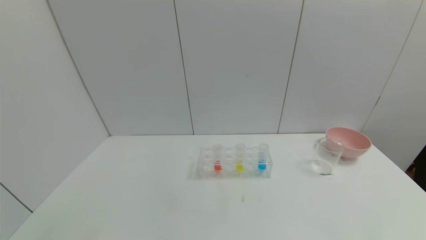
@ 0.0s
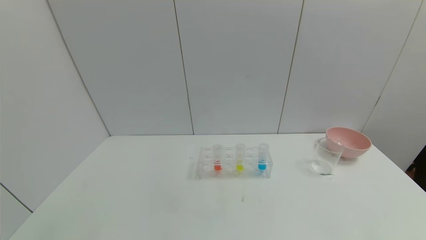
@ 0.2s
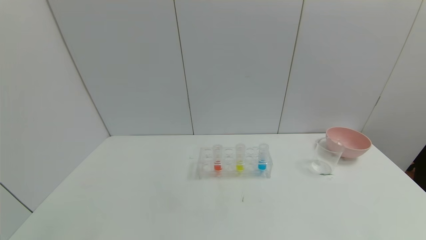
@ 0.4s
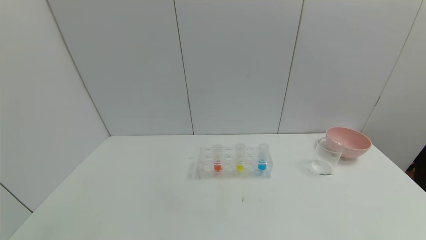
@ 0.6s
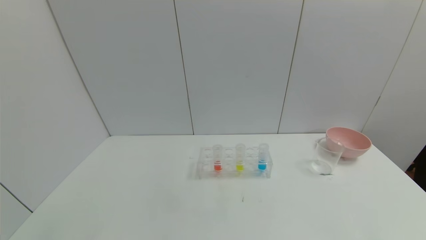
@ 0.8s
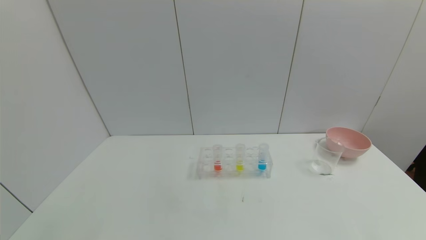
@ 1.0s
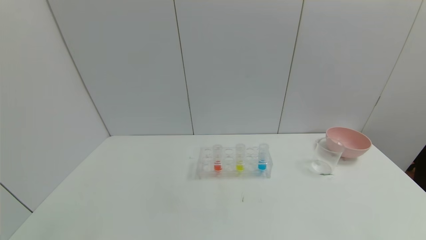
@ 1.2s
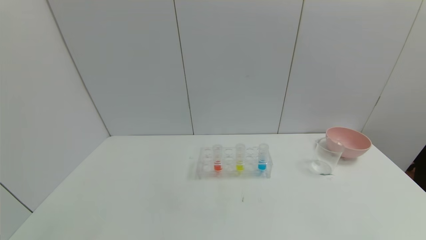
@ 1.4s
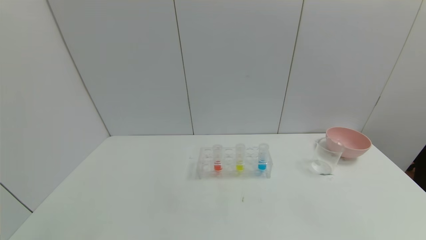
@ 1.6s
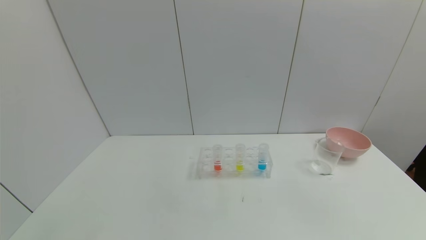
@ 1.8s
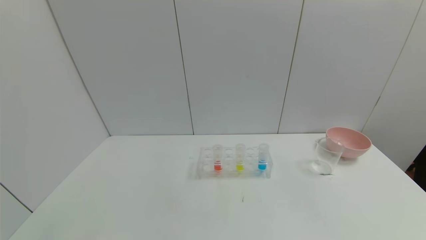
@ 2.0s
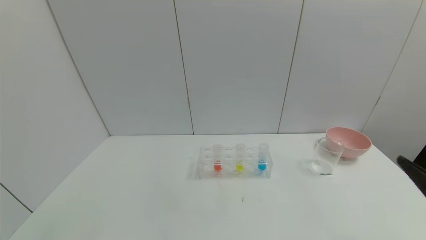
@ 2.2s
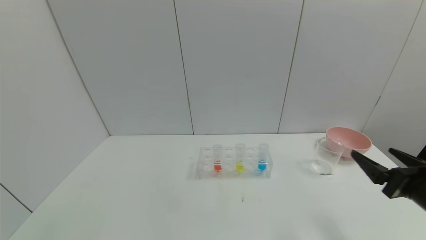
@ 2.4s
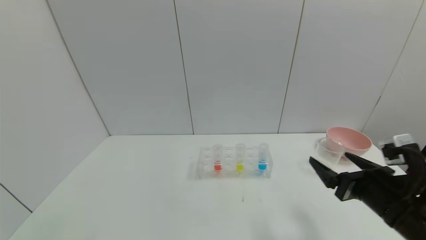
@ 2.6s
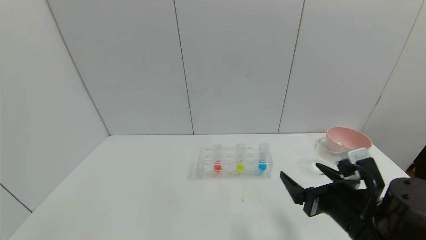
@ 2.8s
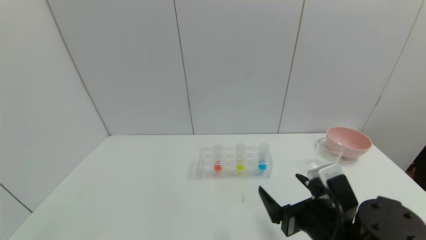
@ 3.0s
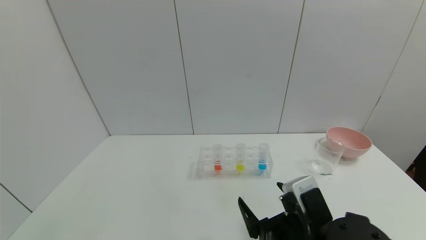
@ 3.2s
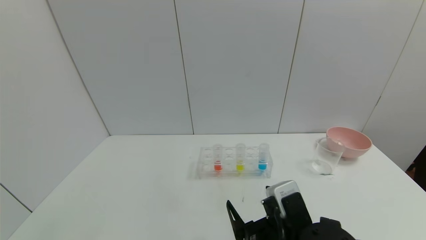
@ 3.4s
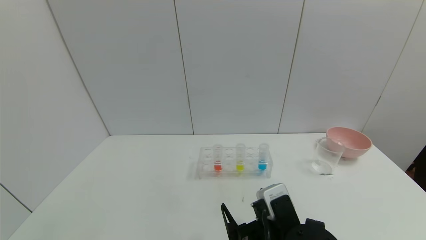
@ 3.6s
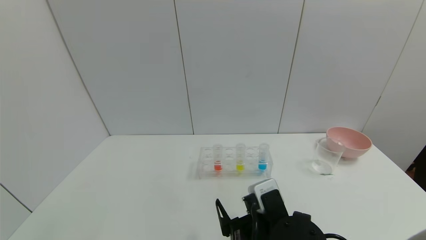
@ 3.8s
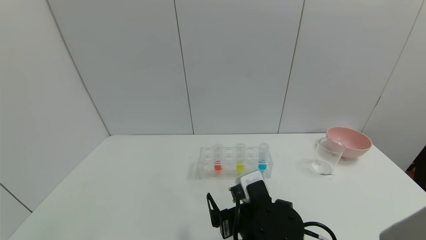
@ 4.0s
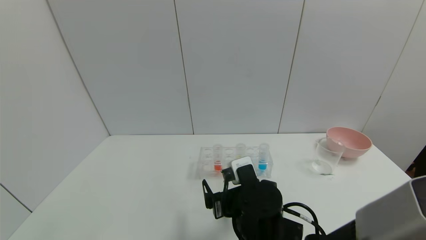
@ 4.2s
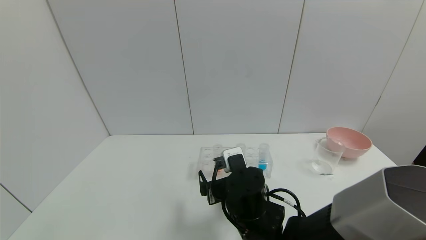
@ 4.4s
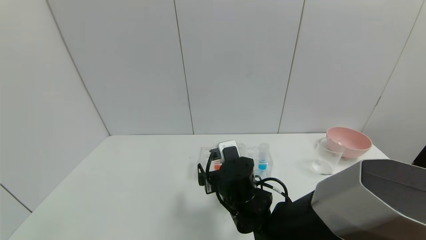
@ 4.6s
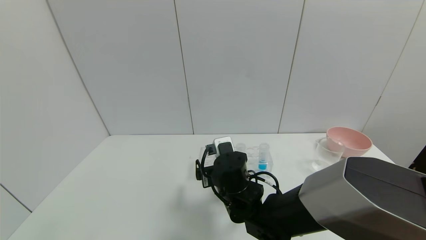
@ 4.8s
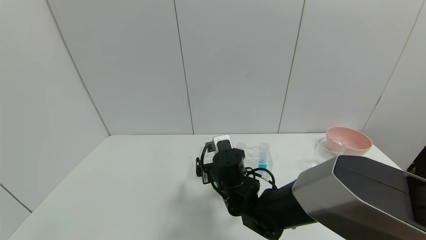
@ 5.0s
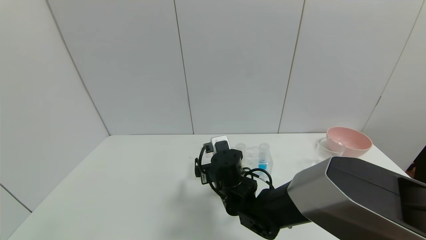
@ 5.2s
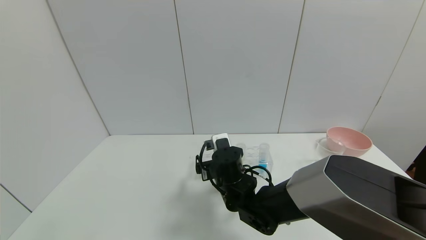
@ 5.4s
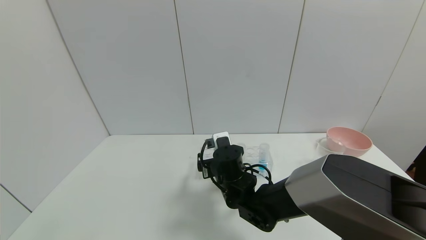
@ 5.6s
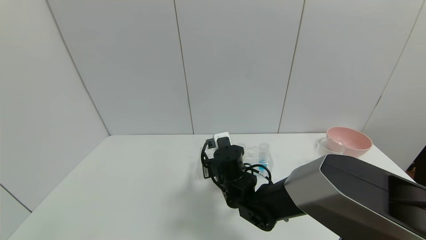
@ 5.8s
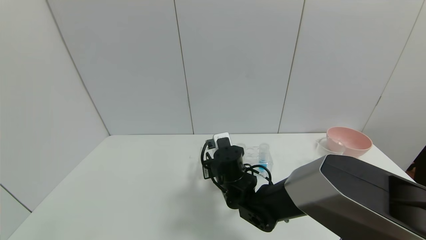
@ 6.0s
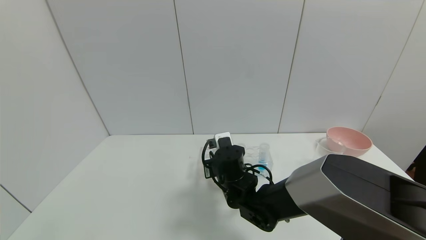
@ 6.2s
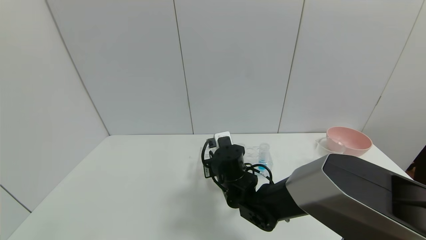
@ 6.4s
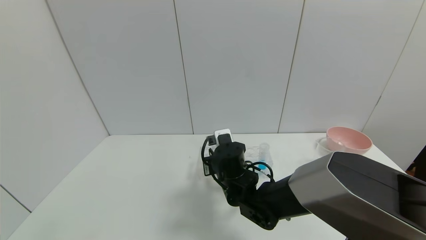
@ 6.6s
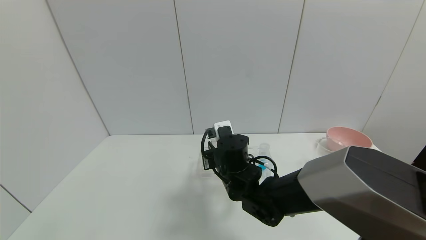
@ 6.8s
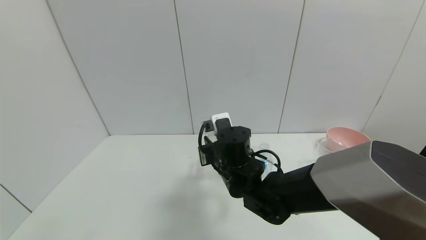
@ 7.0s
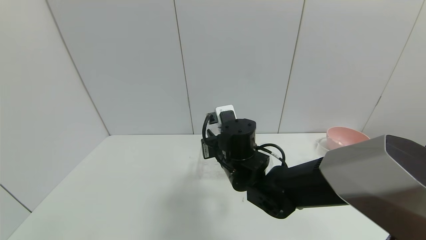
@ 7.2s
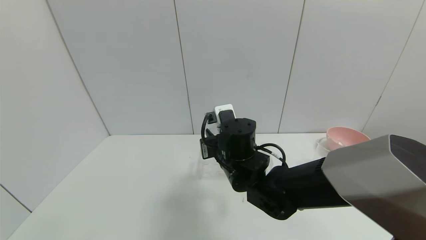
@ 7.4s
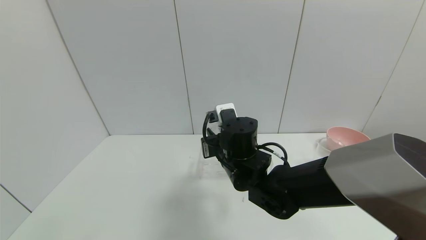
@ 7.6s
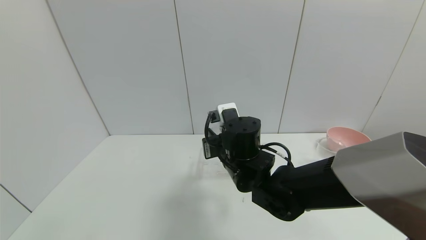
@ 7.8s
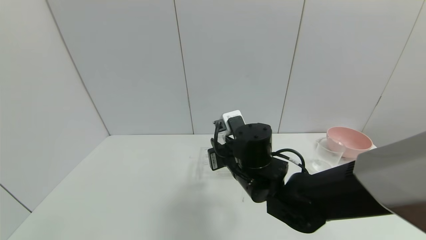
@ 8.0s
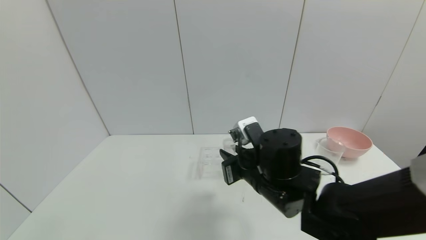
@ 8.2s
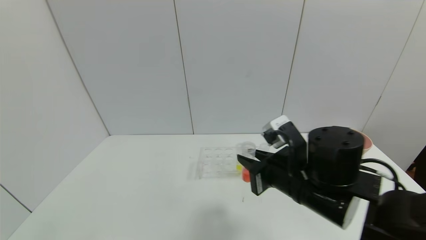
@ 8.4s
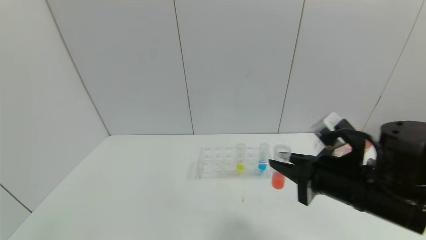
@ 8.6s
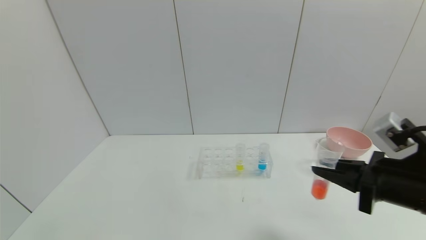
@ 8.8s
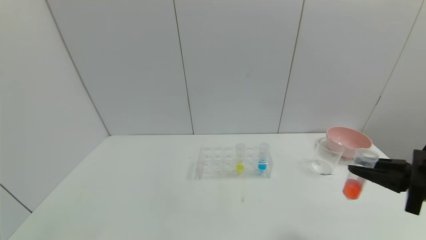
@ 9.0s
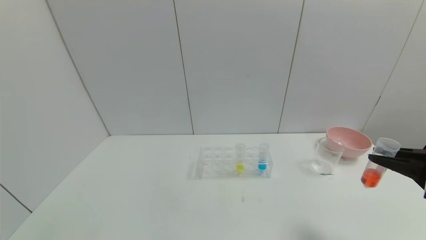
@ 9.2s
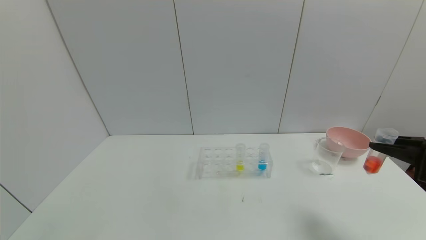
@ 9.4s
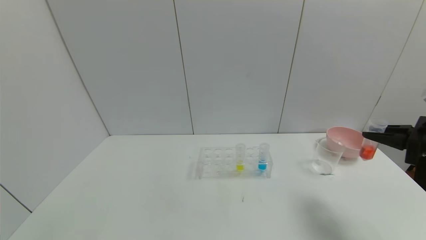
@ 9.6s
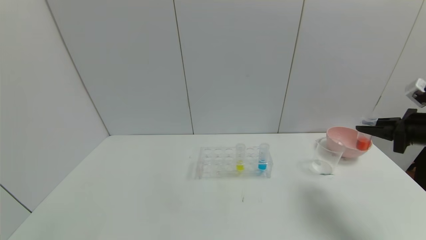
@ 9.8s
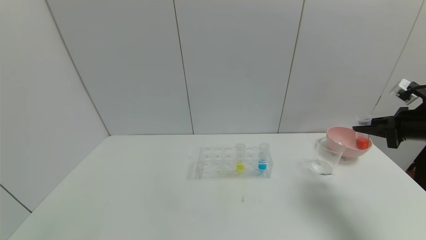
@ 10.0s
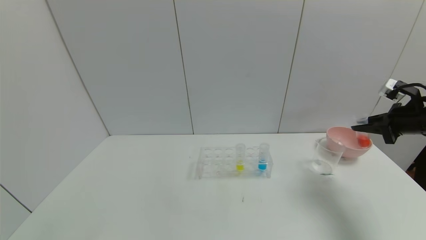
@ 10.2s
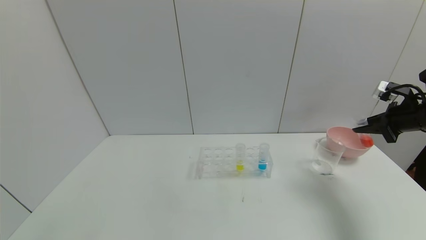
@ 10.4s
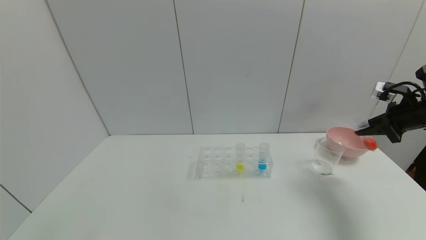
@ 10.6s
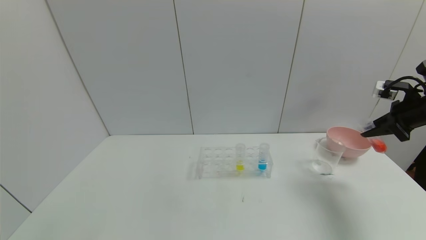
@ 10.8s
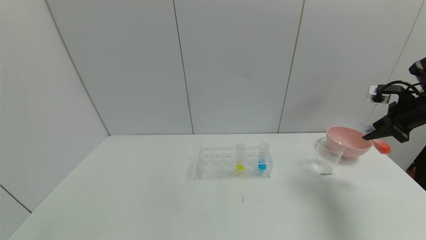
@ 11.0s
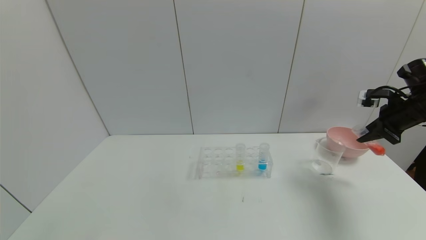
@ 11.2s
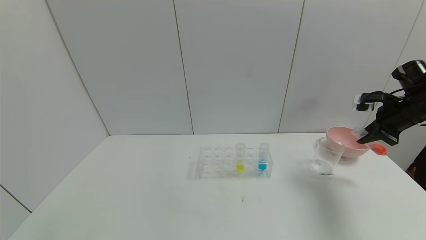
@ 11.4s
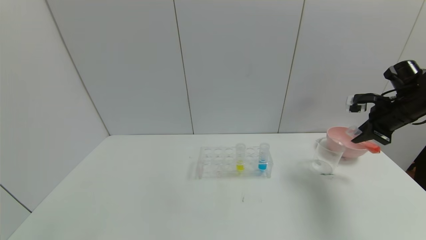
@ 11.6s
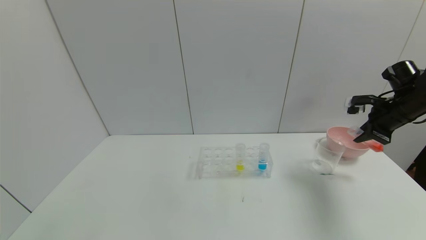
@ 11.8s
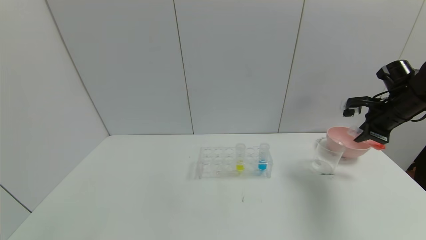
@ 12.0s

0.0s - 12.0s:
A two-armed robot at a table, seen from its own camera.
Task of the whole recording: pick up the test tube with red pigment and the test tube with blue pigment by grippers and pour them into the container.
Step, 0.0s - 6.4s: Grasp the red reagent with the right gripper.
1.6s - 3.0s: The right gripper goes approximately 25 cm to the left and forward.
3.0s - 4.4s: The right gripper is displaced to the left and forward by approximately 15 cm.
4.4s - 6.0s: The right gripper moves forward, roughly 10 cm, and closes its fingers.
6.0s - 7.6s: The right gripper travels upward by approximately 10 cm.
7.6s - 9.0s: The right gripper heads to the right and backward, covering approximately 35 cm.
9.0s - 10.4s: The right gripper moves forward and to the right, approximately 20 cm.
10.4s - 12.0s: The right gripper shifts by some 5 cm.

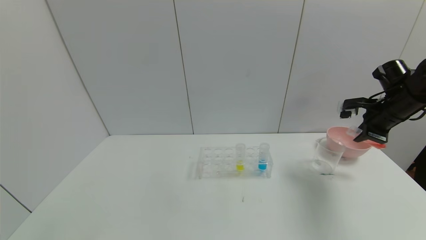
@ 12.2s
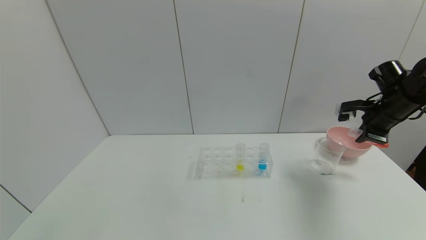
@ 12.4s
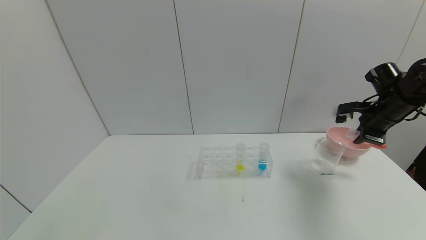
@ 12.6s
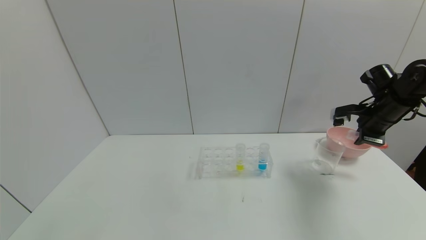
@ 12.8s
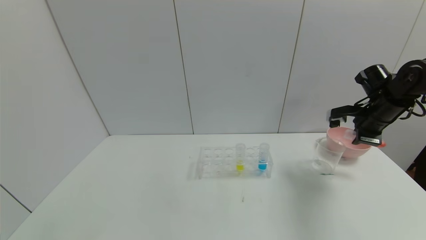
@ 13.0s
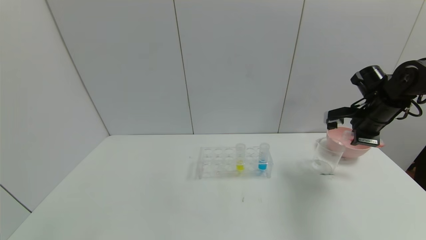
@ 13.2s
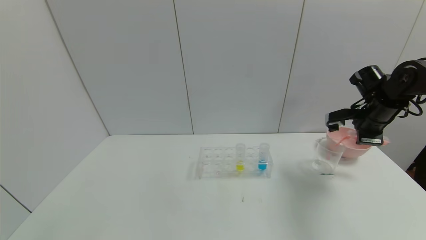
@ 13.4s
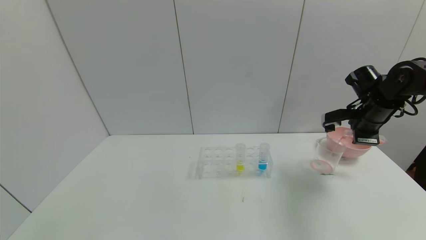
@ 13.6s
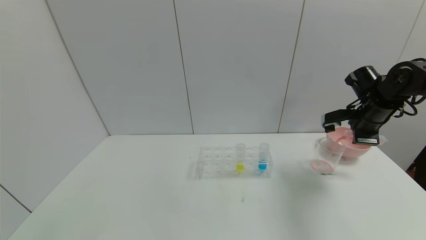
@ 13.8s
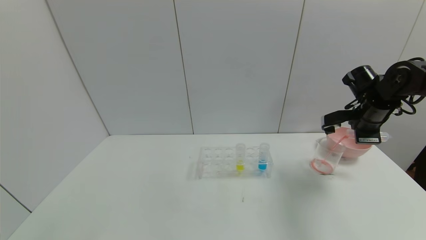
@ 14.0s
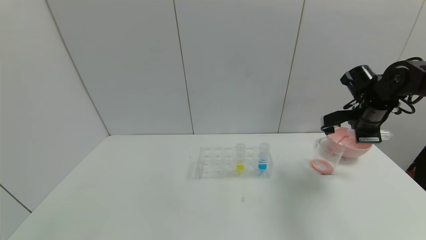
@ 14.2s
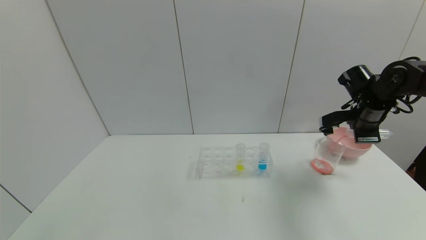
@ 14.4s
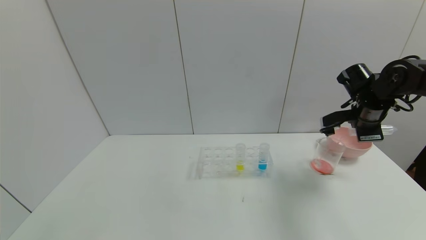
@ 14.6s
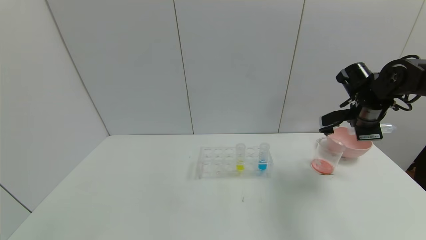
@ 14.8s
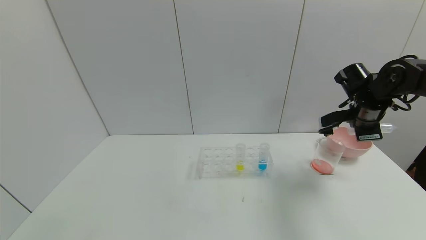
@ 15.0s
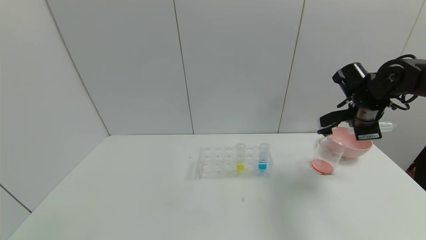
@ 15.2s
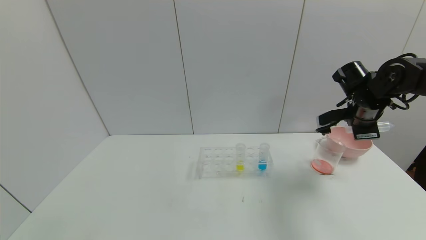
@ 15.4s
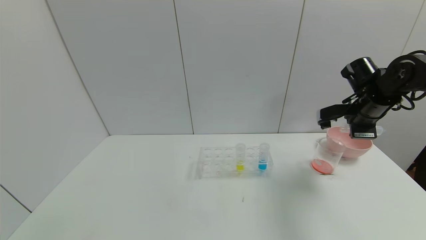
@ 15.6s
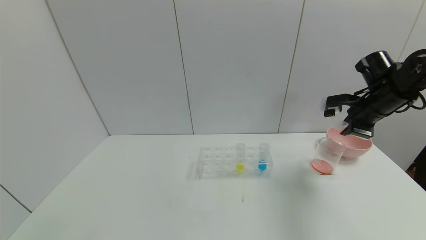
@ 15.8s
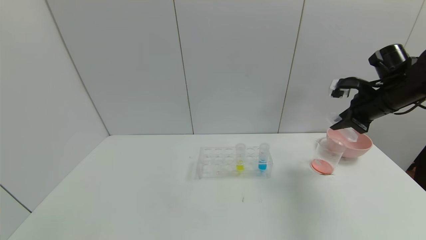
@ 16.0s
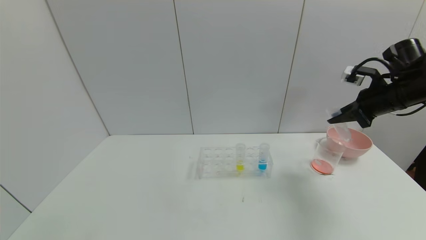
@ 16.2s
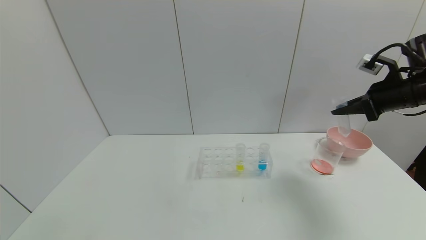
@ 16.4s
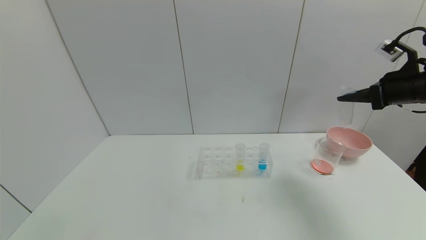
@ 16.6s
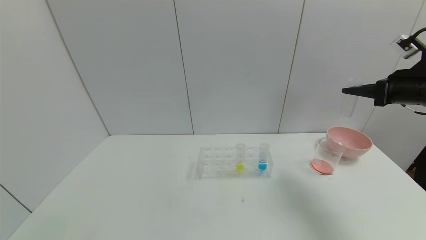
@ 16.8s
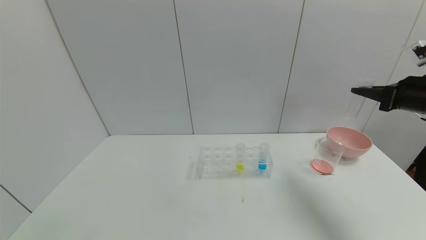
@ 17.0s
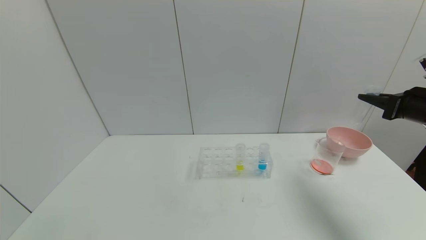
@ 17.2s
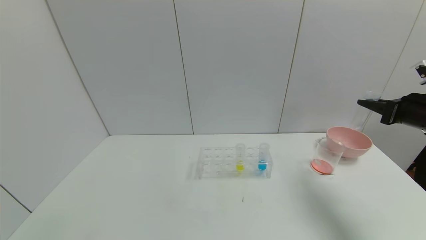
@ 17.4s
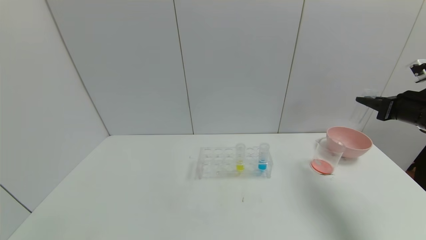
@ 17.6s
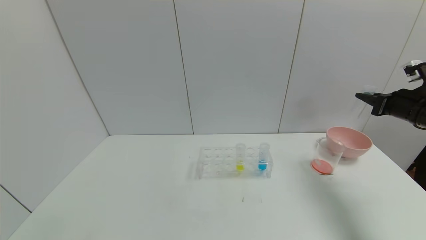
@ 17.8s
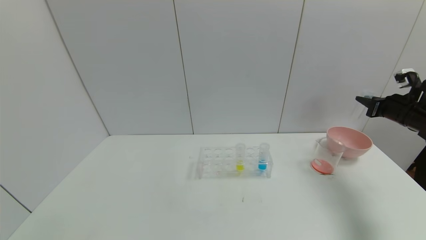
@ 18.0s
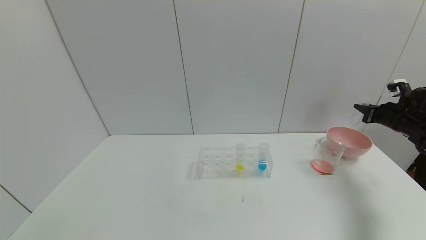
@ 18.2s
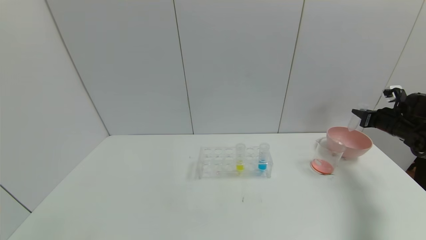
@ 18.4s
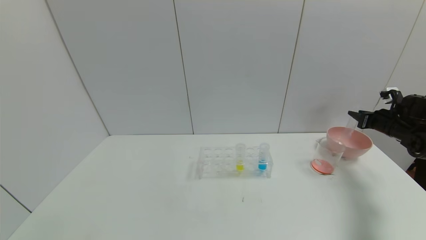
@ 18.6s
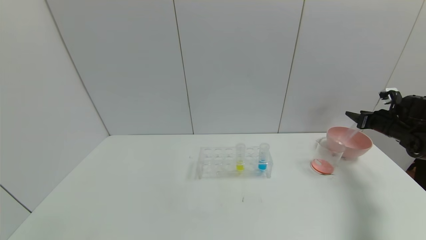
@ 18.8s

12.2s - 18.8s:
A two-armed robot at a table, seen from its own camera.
Task of the whole recording: pick up the test tube with red pigment and the test tube with blue pigment by grippers and pour them into the container.
Step, 12.2s - 15.0s: Pour the red reagent into the graduated cylinder with the right gripper.
12.2s - 13.8s: The grippers move only a little.
13.8s - 15.4s: The grippers make only small movements.
15.4s - 17.2s: The right gripper moves to the right and backward, roughly 10 cm.
17.2s - 18.8s: The right gripper goes roughly 20 cm forward, downward and to the right, and opens.
